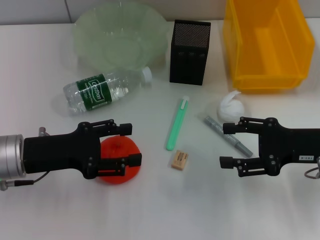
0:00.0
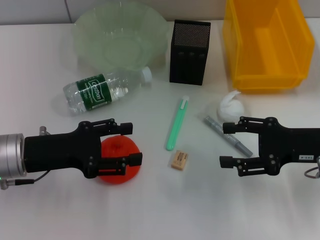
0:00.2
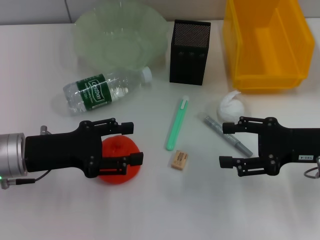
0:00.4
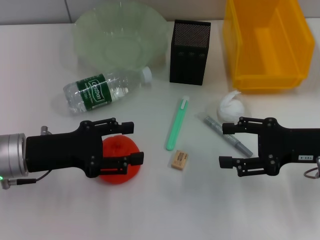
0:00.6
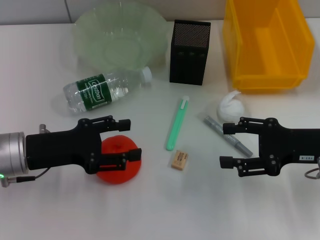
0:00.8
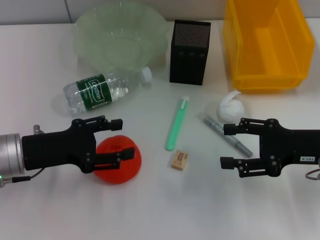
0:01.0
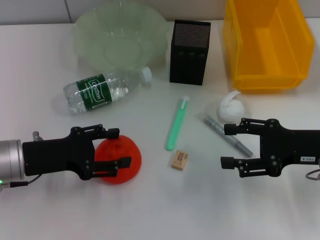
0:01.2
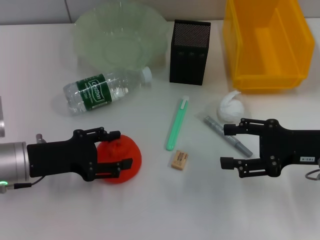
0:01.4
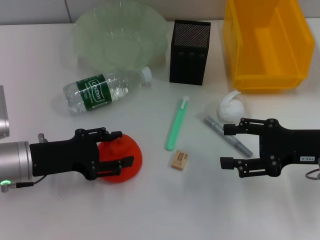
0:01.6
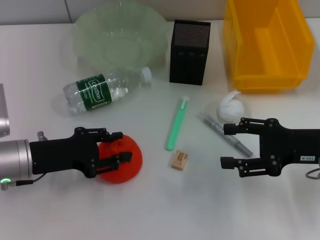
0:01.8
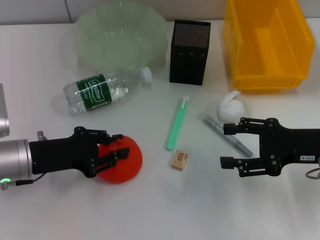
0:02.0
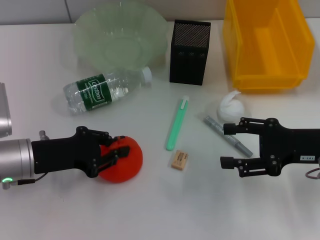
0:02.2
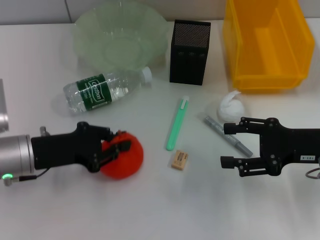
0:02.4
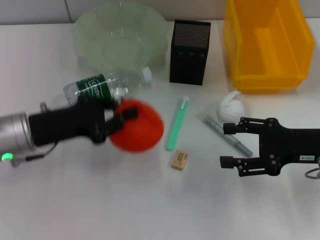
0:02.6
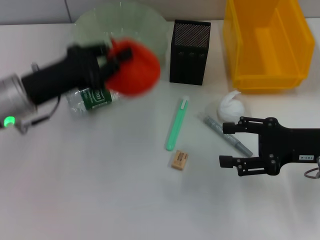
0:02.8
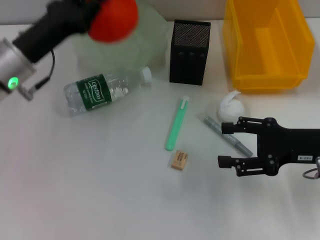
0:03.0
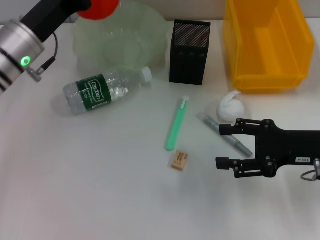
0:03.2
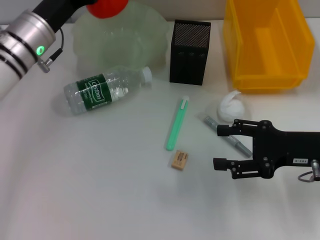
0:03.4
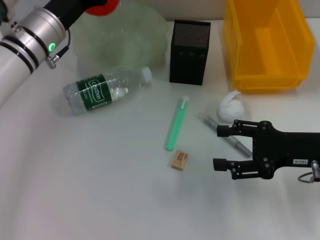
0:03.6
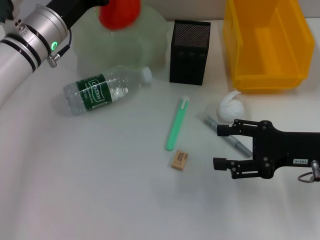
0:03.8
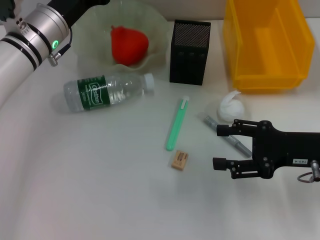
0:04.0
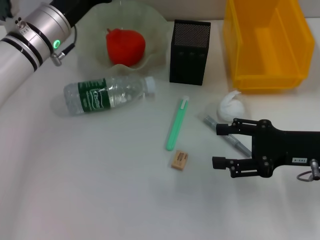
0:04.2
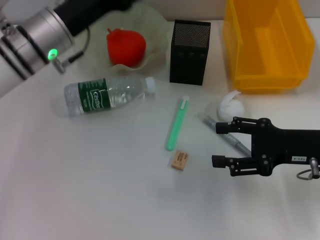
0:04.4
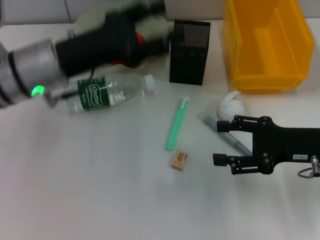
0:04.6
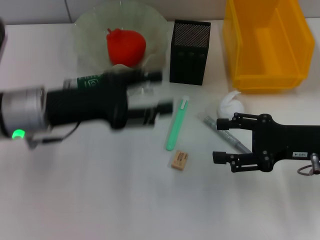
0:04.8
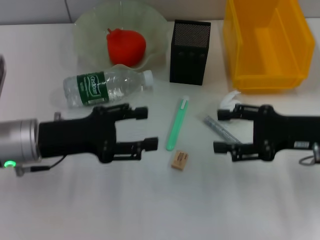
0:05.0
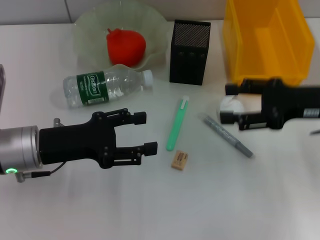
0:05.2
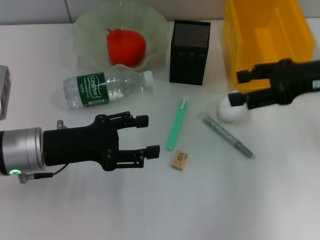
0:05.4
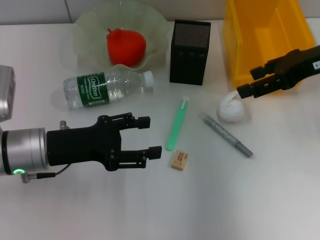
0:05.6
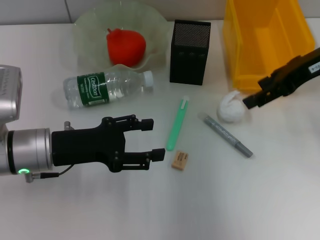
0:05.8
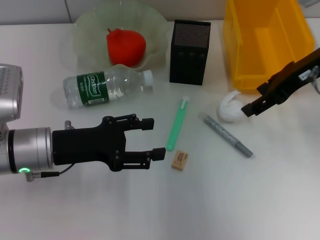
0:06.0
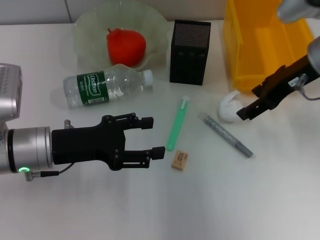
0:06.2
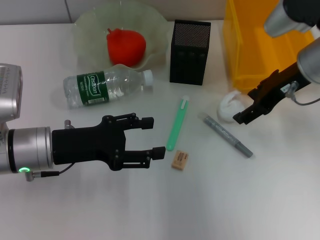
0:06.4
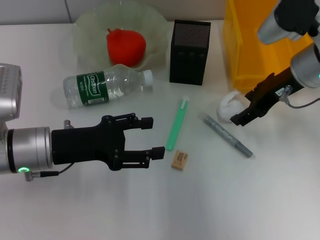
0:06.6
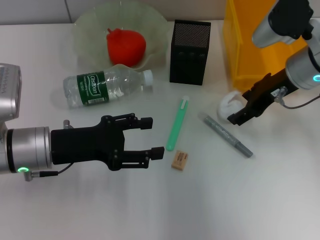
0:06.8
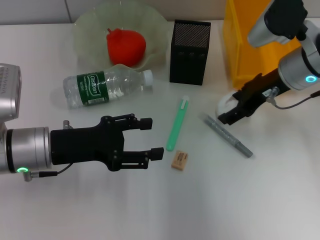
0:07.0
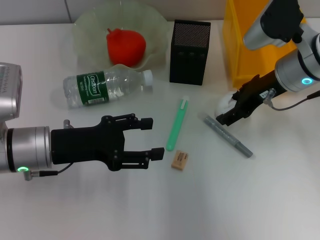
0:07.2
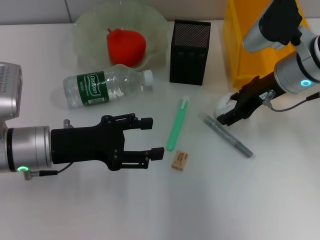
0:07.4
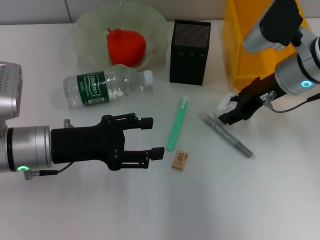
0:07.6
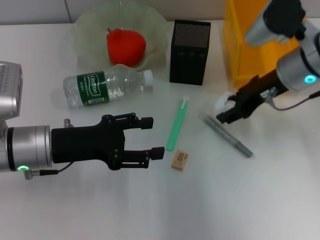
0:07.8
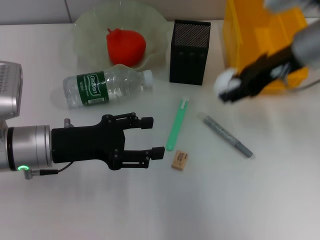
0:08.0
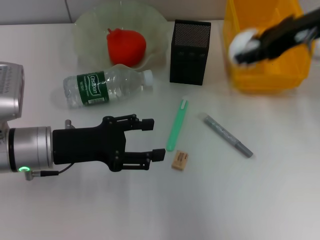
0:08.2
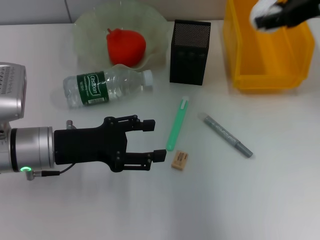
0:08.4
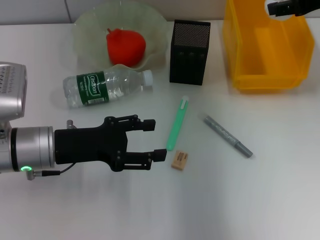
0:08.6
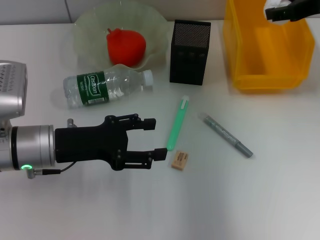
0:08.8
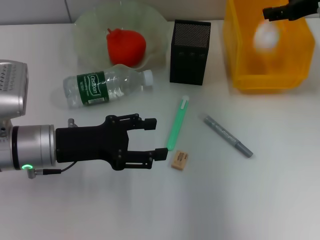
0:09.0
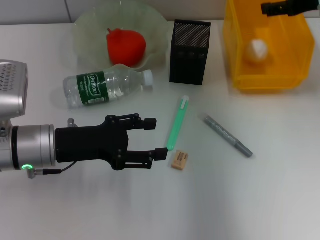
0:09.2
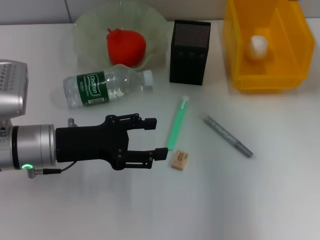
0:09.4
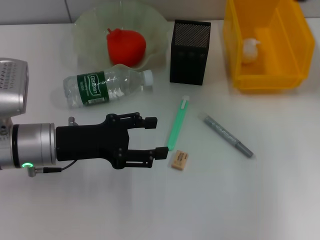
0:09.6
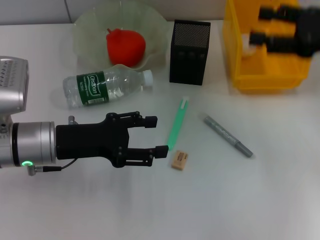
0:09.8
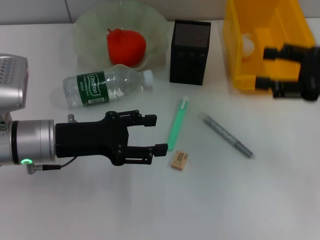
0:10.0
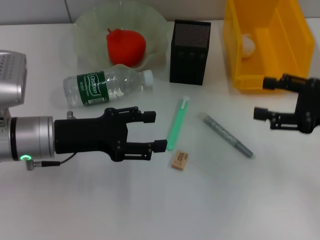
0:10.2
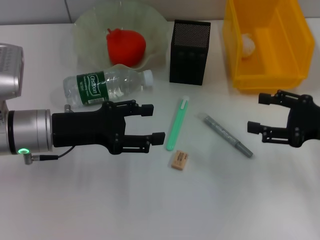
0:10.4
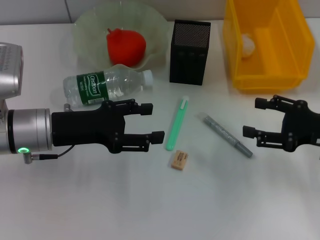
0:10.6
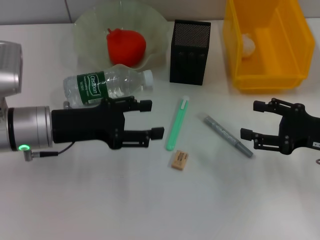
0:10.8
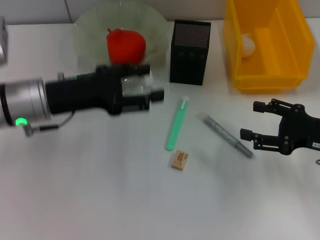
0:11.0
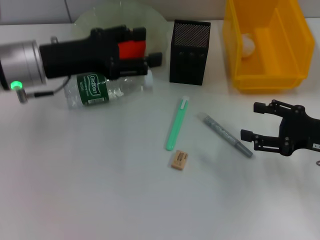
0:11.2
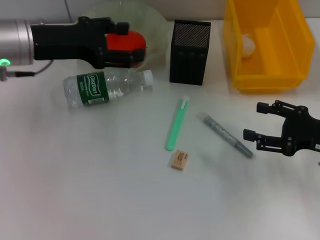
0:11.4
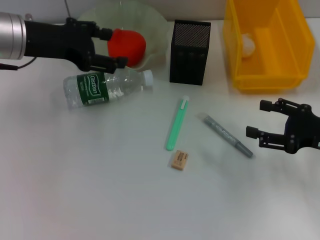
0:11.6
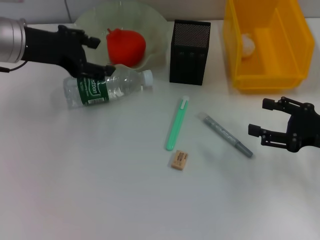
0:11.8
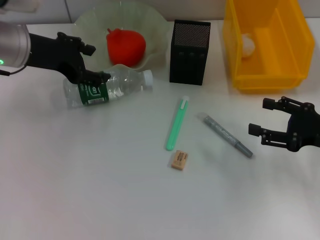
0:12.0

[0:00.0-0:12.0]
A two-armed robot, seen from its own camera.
Step, 0:00.0 to 0:02.2: Grab the orange with the left hand.
Step, 0:02.4 to 0:04.0: Place the orange into the fruit bowl with the left hand.
Step, 0:04.2 to 0:07.4: Grab the paper ball with the right hand.
Step, 0:07.8 to 0:09.6: Place the paper ball into the trash can with the right hand.
0:00.0 to 0:01.6: The grippers stay close to where they were, moving slightly.
0:01.6 to 0:03.0: The left gripper heads forward and upward, covering approximately 10 cm, and closes.
0:03.0 to 0:04.4: The left gripper moves about 5 cm, and opens.
0:04.4 to 0:06.0: The right gripper moves upward and forward, about 15 cm. The left gripper heads backward and downward, covering about 10 cm.
0:06.0 to 0:07.6: The right gripper heads downward, covering some 5 cm.
0:07.6 to 0:09.0: The right gripper heads upward and to the right, covering about 10 cm.
0:09.0 to 0:10.4: The right gripper is displaced backward and downward by approximately 20 cm.
0:10.4 to 0:12.0: The left gripper travels forward and upward by about 10 cm.

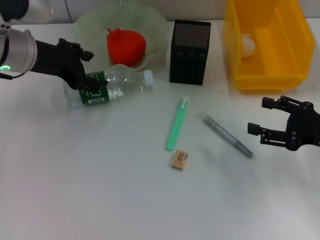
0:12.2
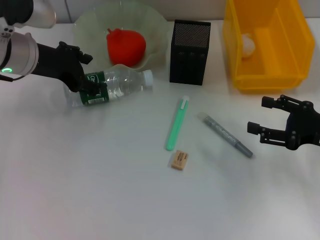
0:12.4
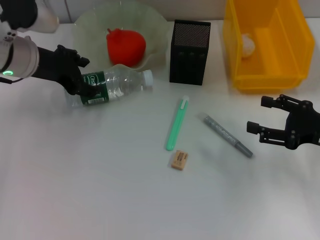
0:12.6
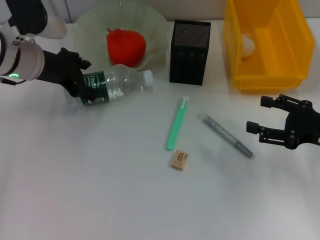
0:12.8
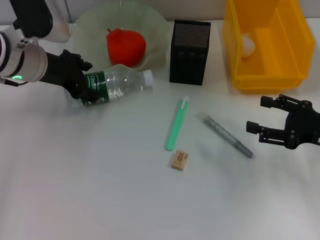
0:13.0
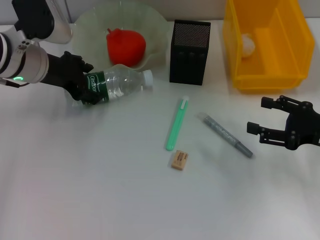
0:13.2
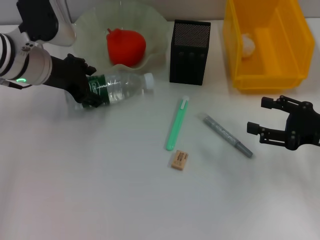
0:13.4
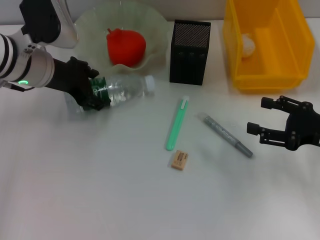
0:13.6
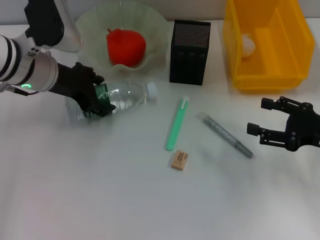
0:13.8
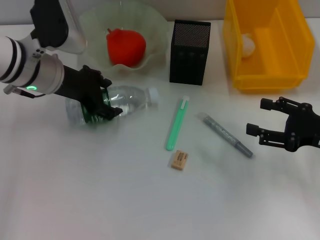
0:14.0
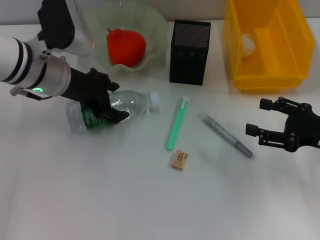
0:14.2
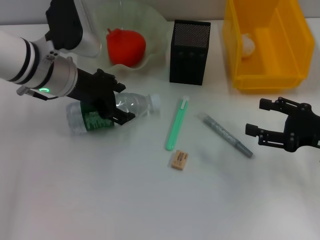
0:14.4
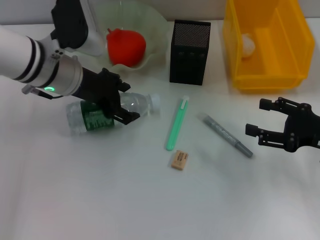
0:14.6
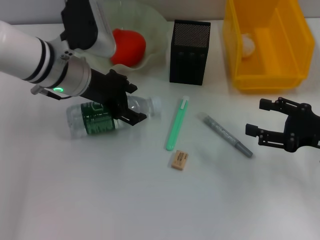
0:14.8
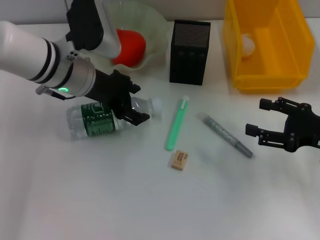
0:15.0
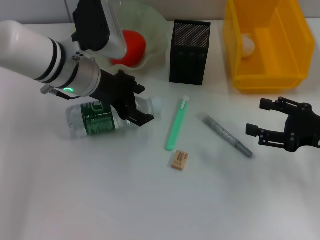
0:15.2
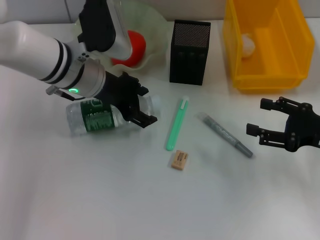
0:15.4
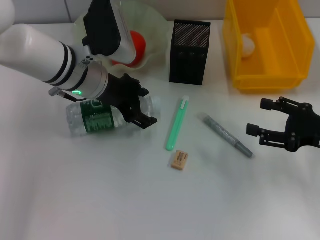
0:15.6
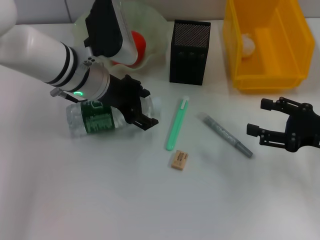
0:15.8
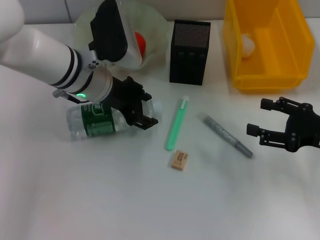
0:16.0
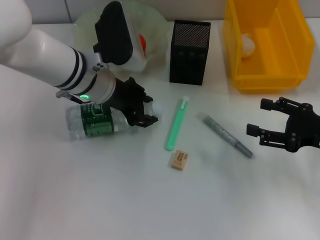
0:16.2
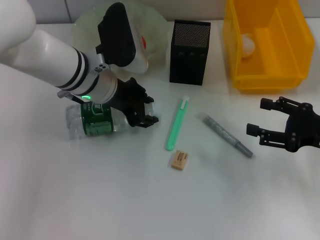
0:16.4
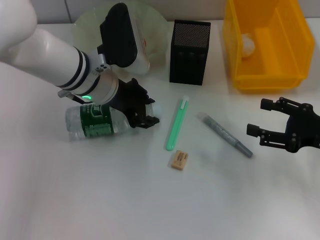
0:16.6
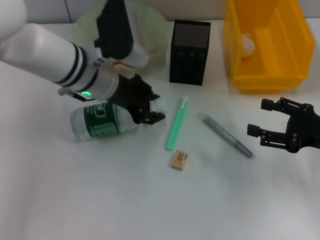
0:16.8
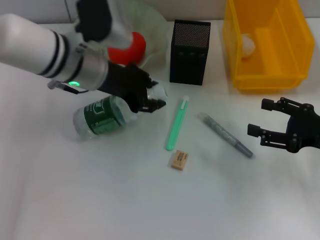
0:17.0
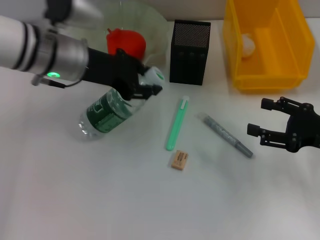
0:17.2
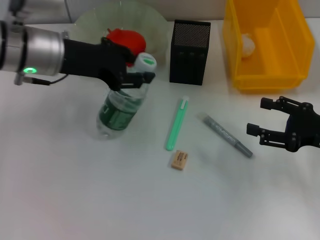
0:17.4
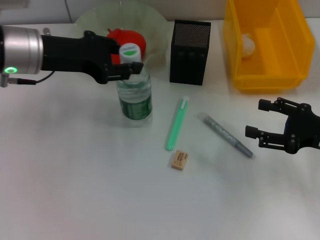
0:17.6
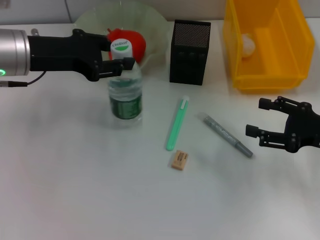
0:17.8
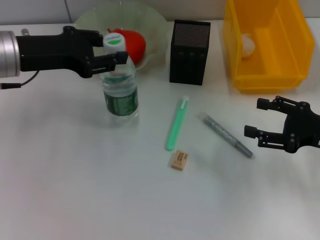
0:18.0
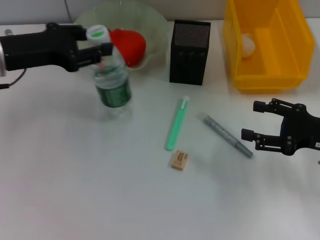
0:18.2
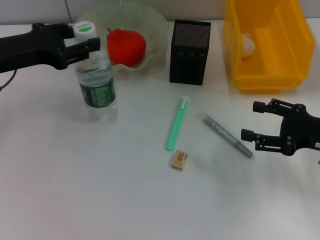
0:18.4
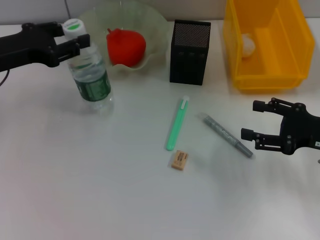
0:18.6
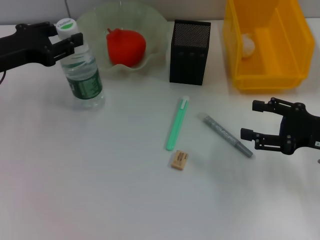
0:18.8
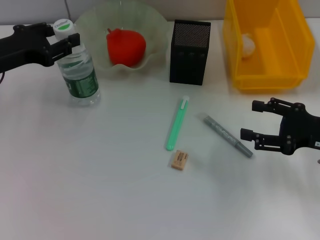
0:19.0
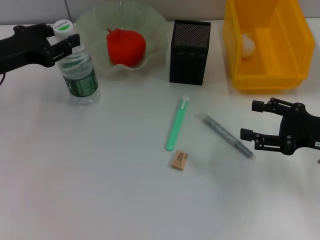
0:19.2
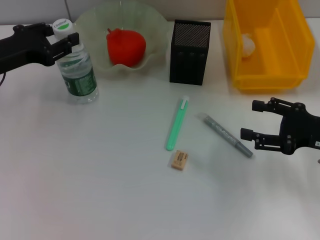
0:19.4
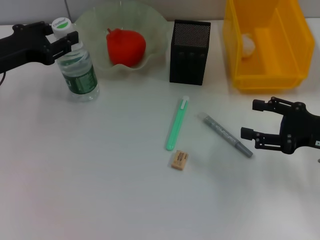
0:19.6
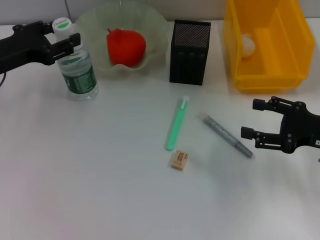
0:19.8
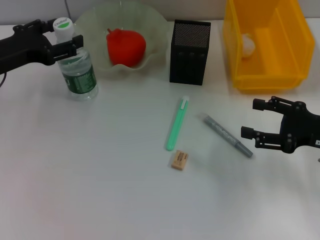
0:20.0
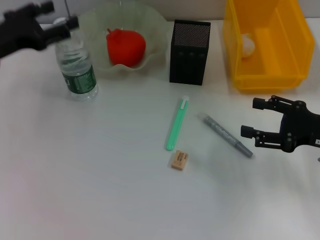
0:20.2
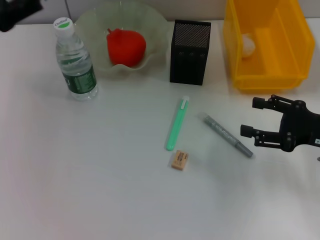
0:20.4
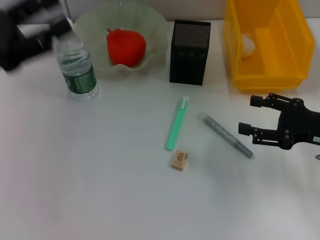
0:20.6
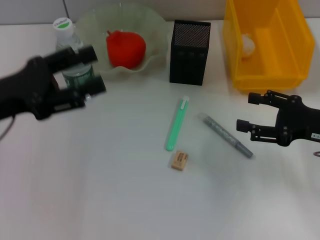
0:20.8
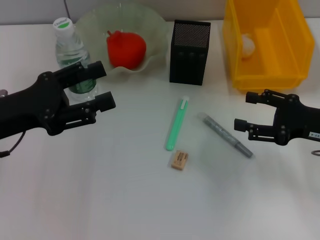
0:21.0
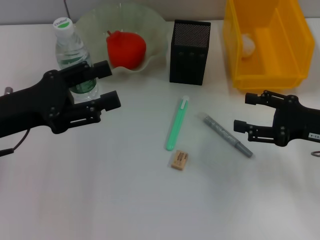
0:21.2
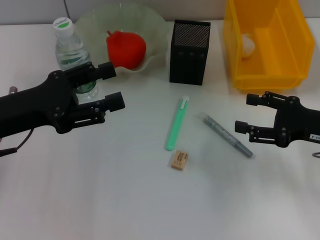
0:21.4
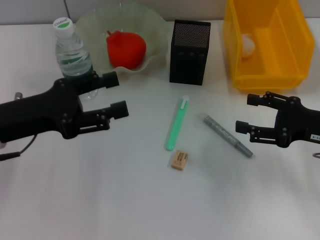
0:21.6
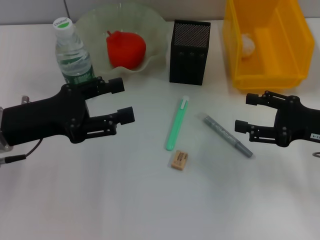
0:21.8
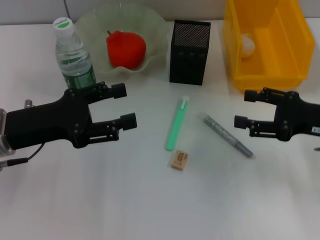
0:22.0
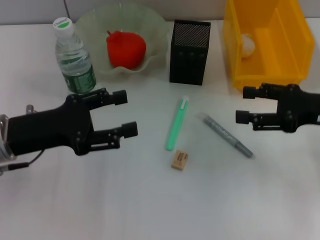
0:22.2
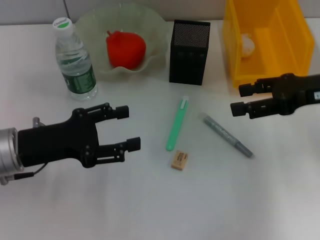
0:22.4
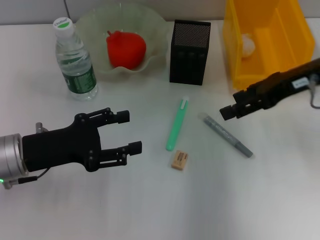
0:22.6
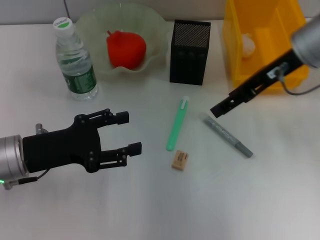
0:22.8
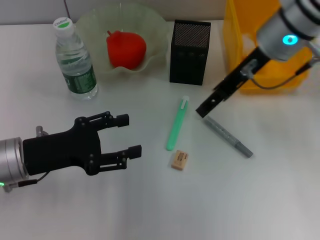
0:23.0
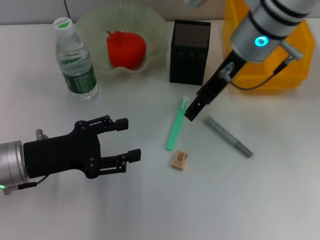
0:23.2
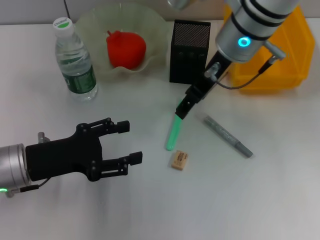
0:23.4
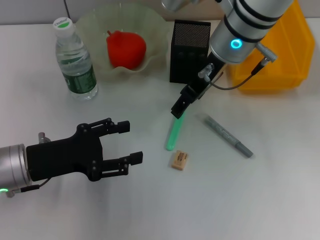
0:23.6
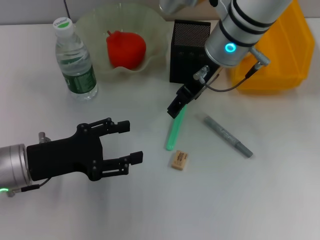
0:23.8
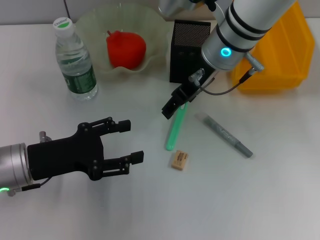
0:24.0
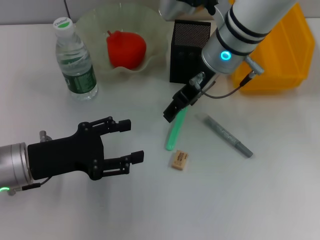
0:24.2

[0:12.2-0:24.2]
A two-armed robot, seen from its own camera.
Step, 0:12.2 to 0:16.4: Grab the water bottle with the left hand.
Step, 0:16.6 to 0:19.8: Place the water bottle on the table with the left hand.
0:12.2 to 0:13.8: There are only small adjustments of the grippers.
0:13.8 to 0:15.2: The left gripper is displaced to the right by about 5 cm.
0:15.2 to 0:16.6: The left gripper closes.
0:16.6 to 0:18.2: The left gripper heads to the left, covering some 15 cm.
0:18.2 to 0:19.8: The left gripper shifts by about 5 cm.
0:19.8 to 0:21.2: The left gripper is displaced backward by roughly 10 cm, and opens.
0:21.2 to 0:22.6: The left gripper is displaced downward by roughly 5 cm. The right gripper shifts some 15 cm upward, forward and to the left.
0:22.6 to 0:24.2: The right gripper shifts some 15 cm to the left.
